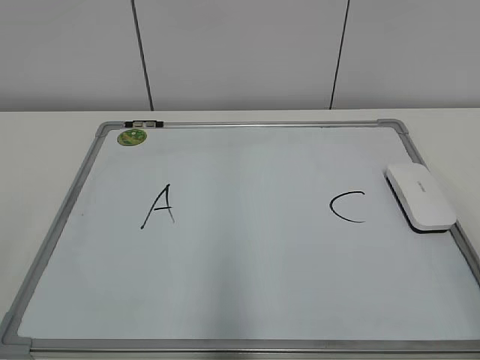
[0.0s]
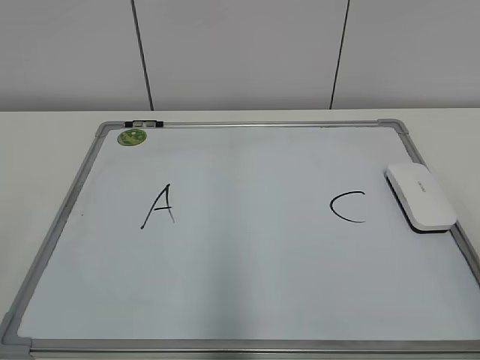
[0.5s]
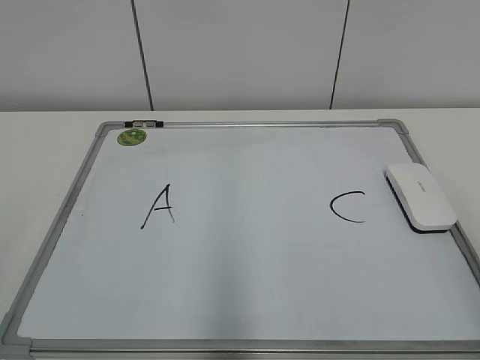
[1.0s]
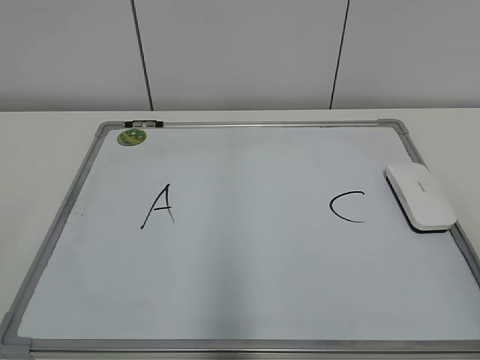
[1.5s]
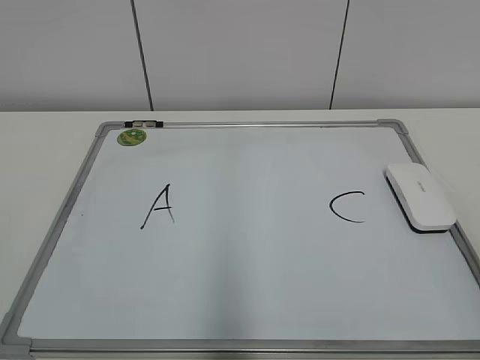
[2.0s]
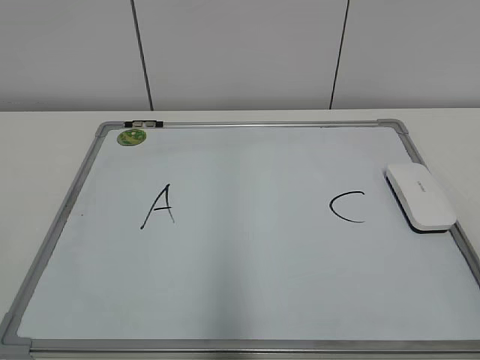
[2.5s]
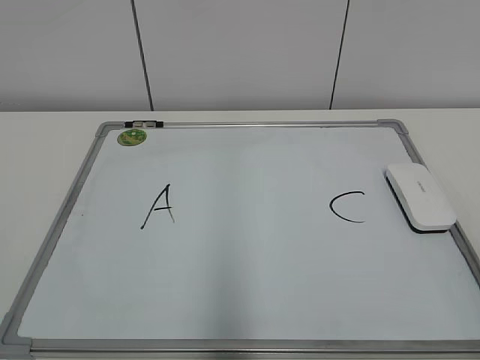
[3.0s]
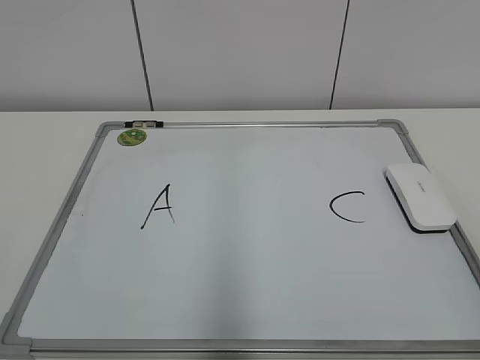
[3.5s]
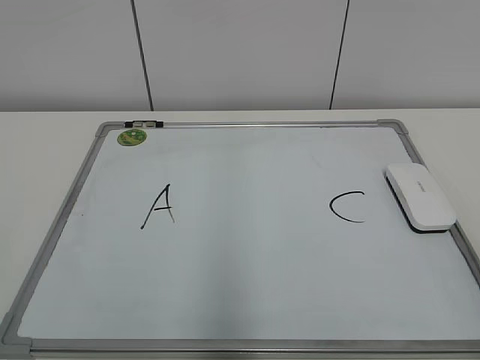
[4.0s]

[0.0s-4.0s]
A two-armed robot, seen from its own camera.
Task of the whole recording: pick up the eraser on the blackboard and erase the letter "B".
2.0s to 4.0s: The two grippers keep their place.

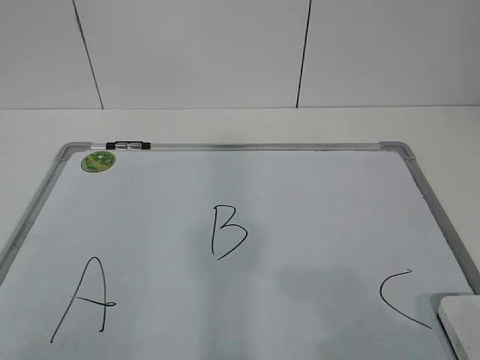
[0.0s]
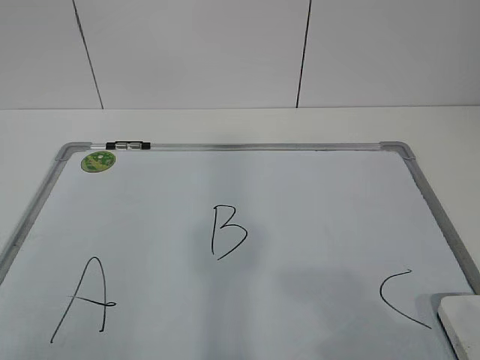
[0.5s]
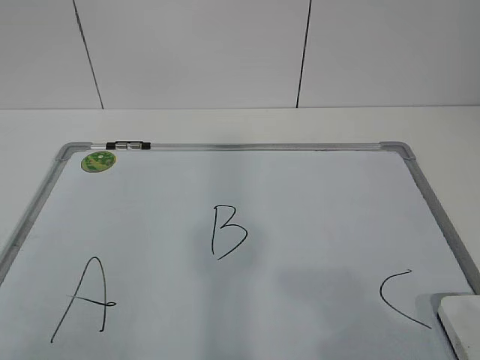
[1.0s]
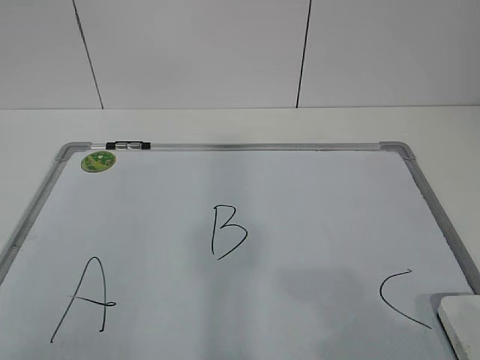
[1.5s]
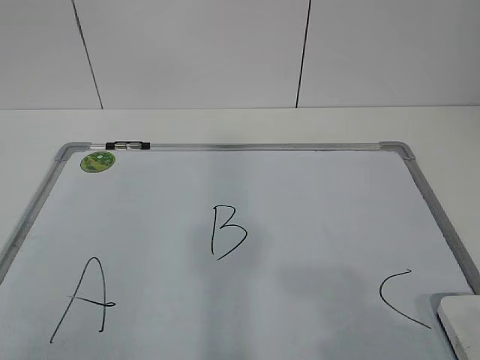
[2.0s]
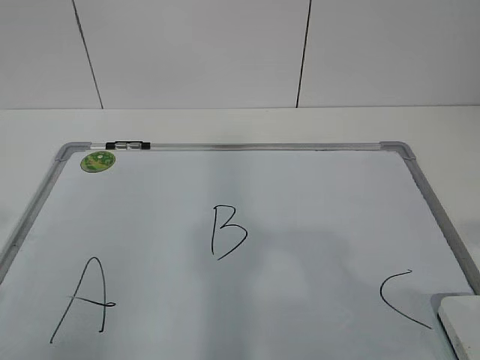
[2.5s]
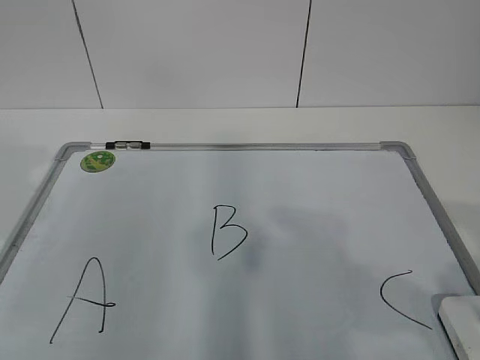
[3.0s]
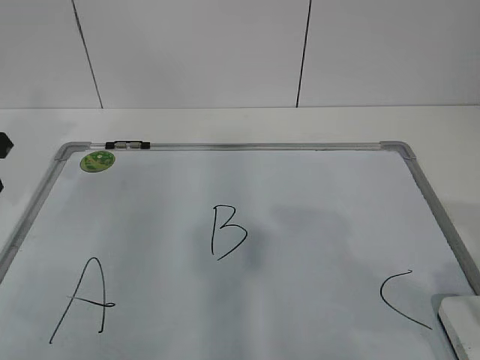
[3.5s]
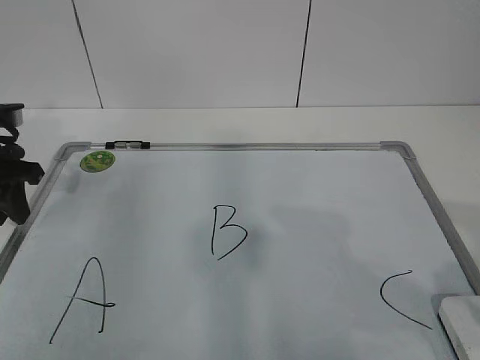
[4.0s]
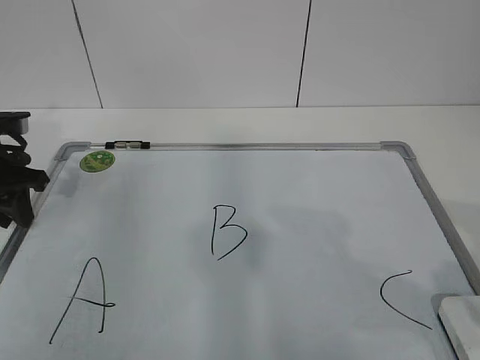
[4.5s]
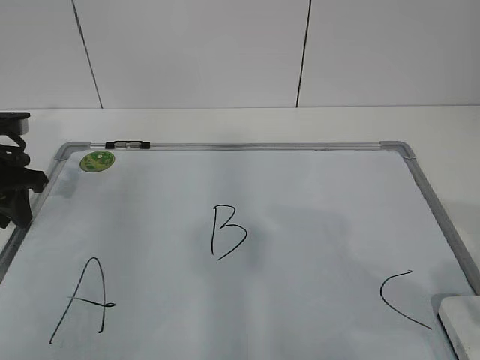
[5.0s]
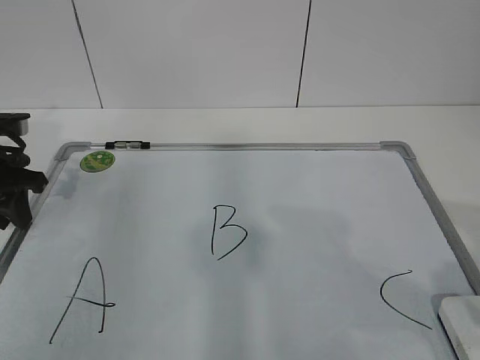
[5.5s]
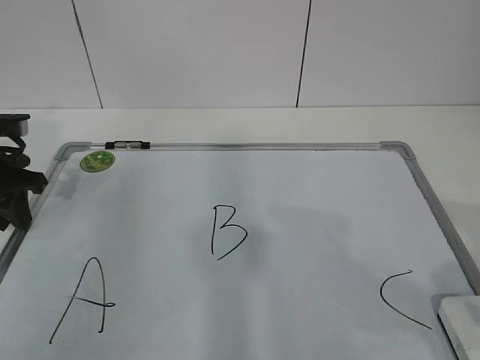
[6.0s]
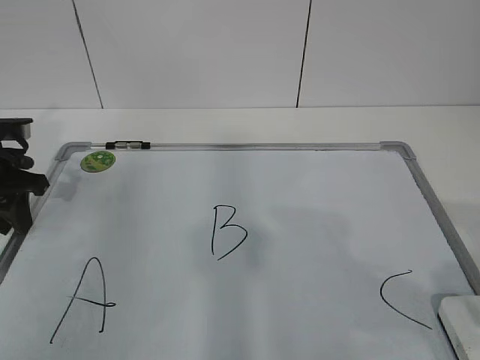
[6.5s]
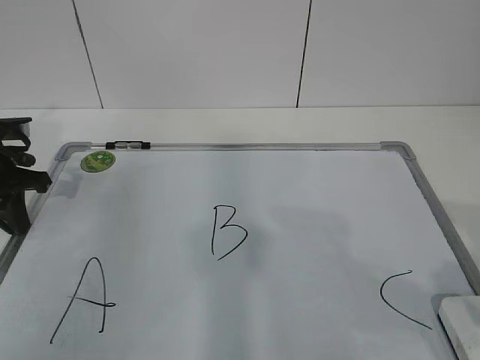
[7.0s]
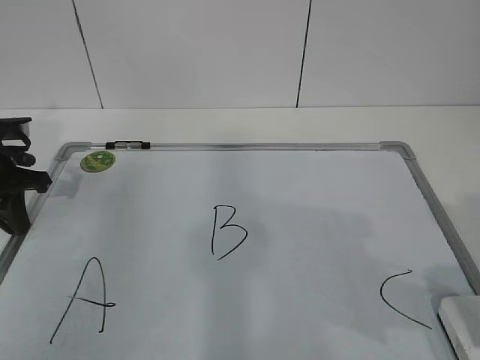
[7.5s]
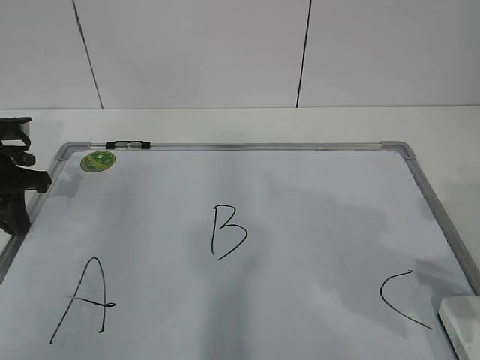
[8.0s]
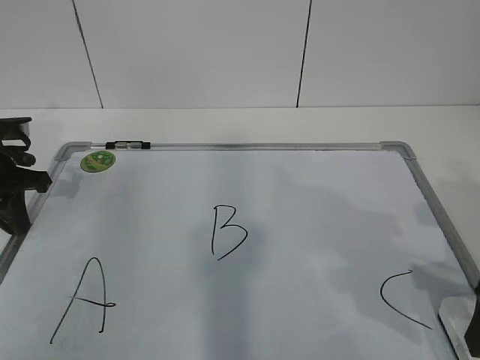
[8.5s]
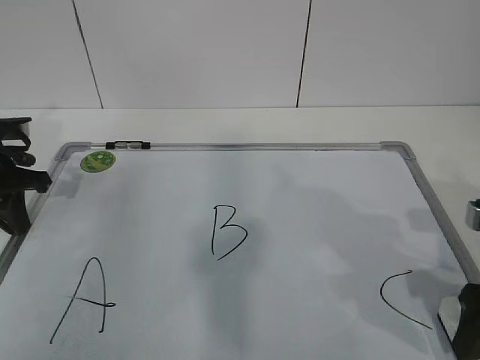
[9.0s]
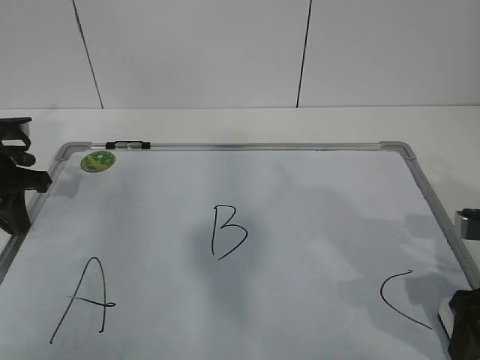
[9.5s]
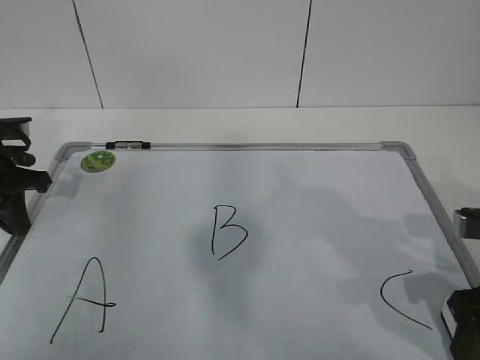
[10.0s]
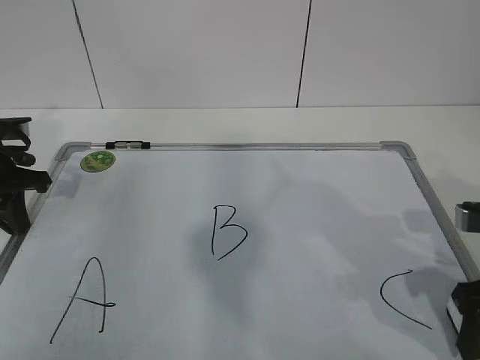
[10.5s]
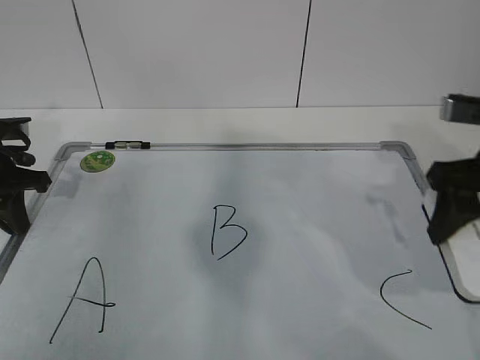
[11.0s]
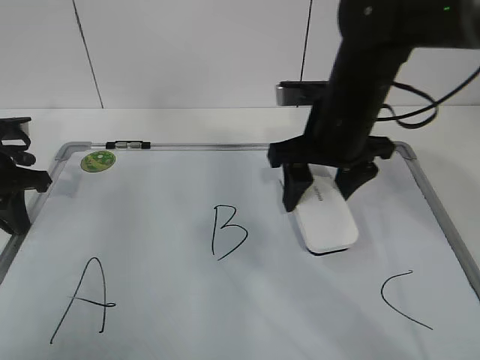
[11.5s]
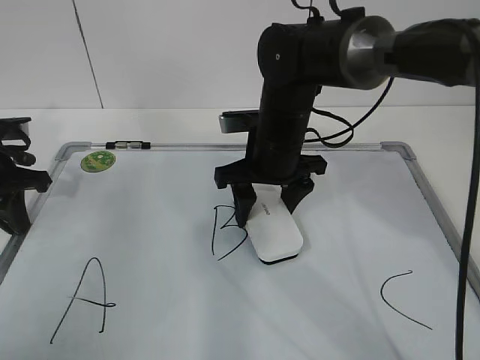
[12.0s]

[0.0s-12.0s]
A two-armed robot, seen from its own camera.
Task of the whole recording: pick up the eraser on the blackboard and erase the letter "B".
Step, 0.0s to 5.5s: Hold the drawing board steady with your left hand.
2.0s to 4.0s: The right gripper is displaced forward by roughly 10 cm. Meanwhile the left gripper shifts approximately 35 cm forward.
4.0s to 6.0s: The grippers make only small movements.
6.0s to 8.0s: The left gripper closes its fingers.
8.0s to 10.0s: The right gripper is displaced downward by approximately 5 cm, and closes its fingers.
10.0s to 12.0s: The right gripper shifts some 30 cm to the left and forward.

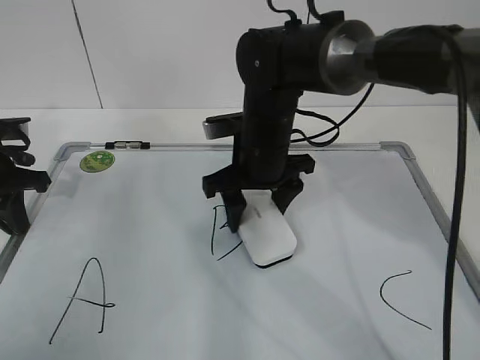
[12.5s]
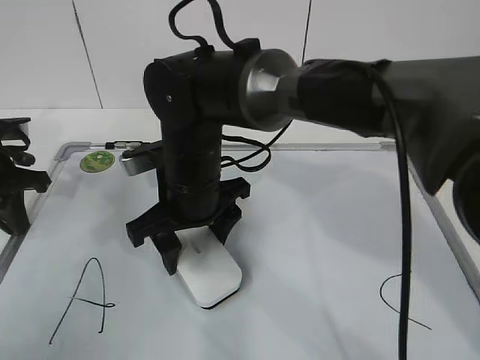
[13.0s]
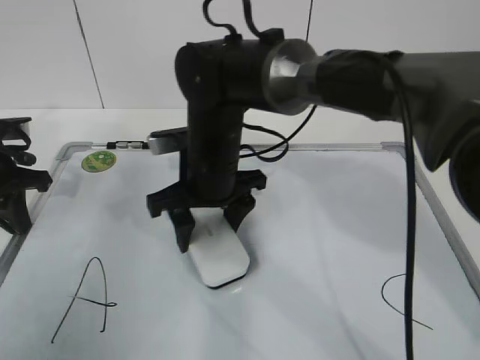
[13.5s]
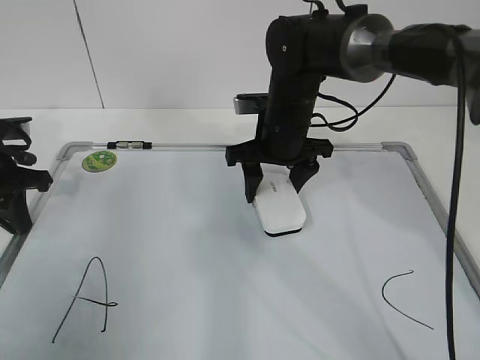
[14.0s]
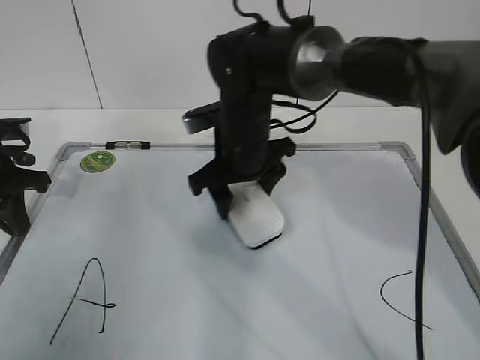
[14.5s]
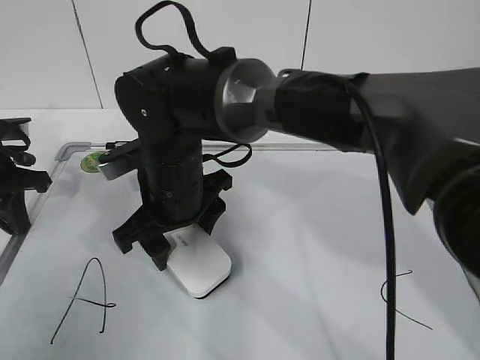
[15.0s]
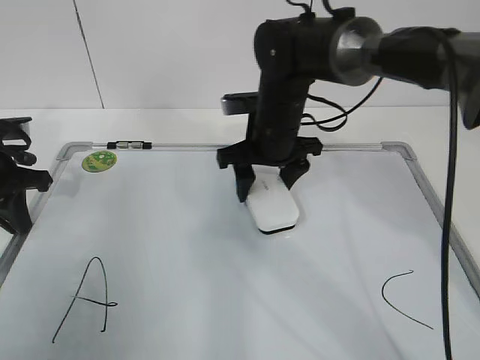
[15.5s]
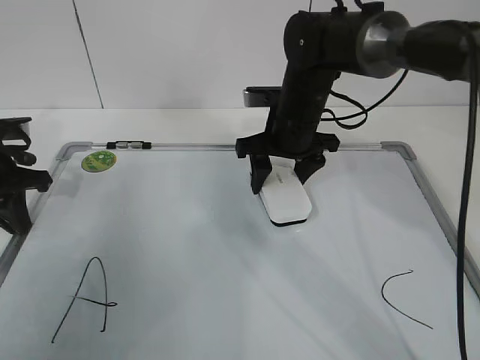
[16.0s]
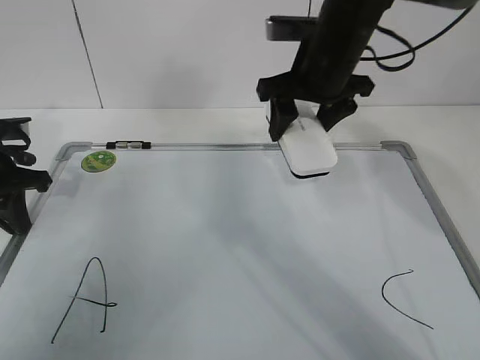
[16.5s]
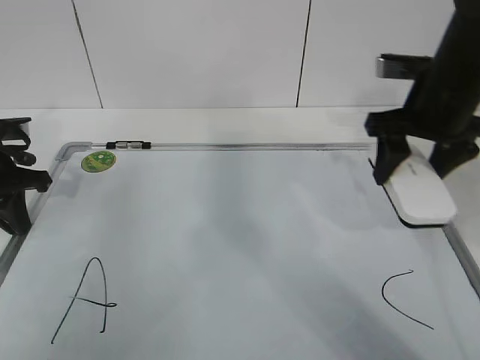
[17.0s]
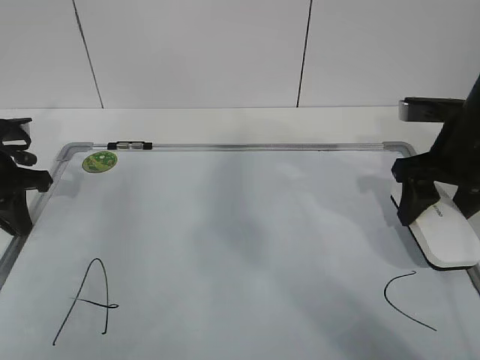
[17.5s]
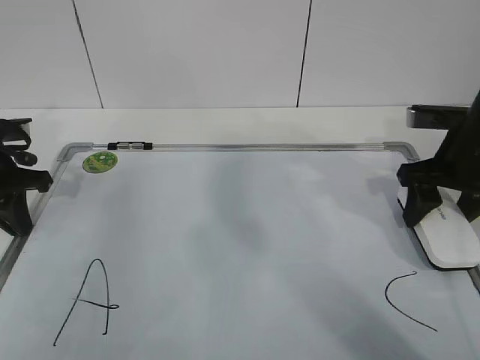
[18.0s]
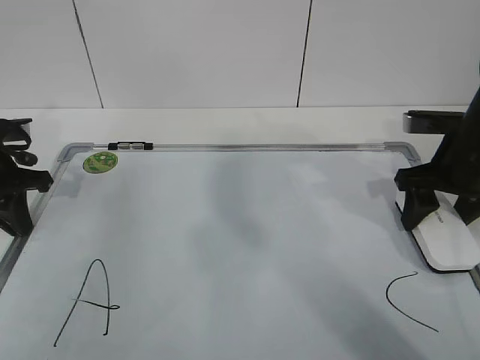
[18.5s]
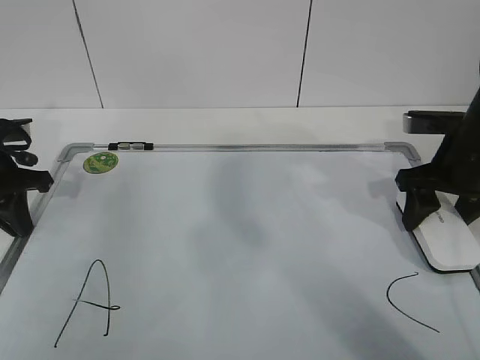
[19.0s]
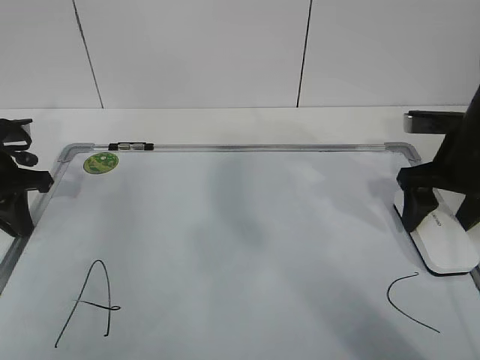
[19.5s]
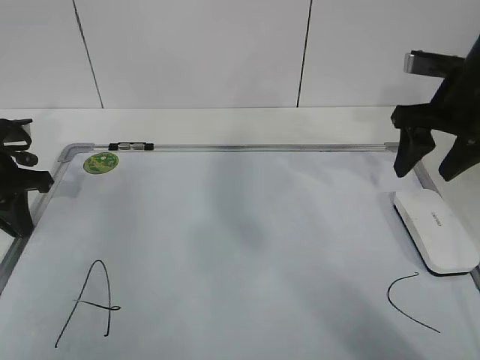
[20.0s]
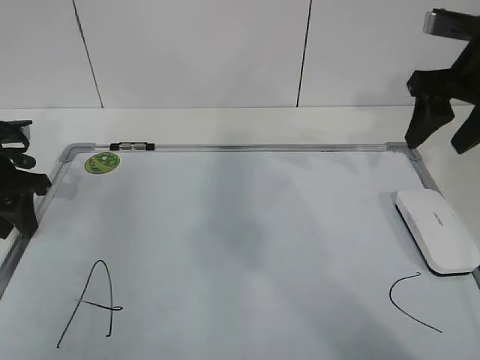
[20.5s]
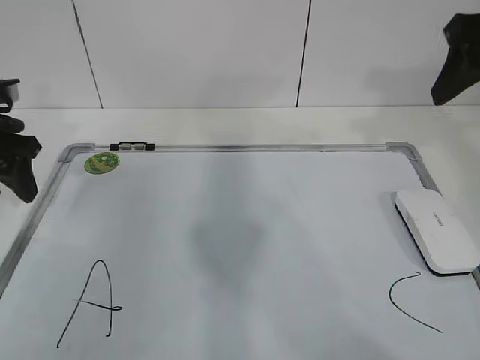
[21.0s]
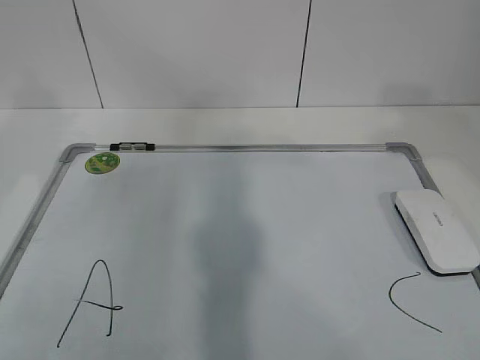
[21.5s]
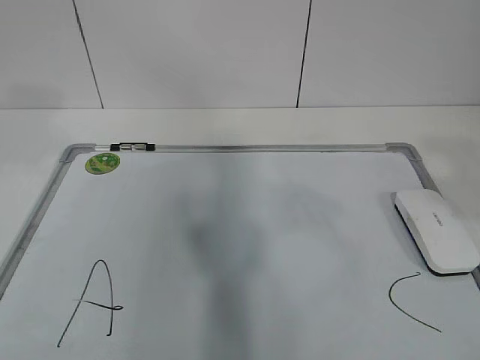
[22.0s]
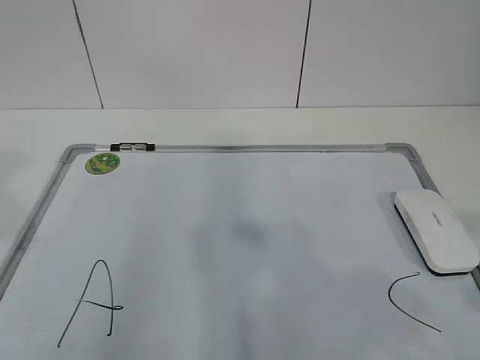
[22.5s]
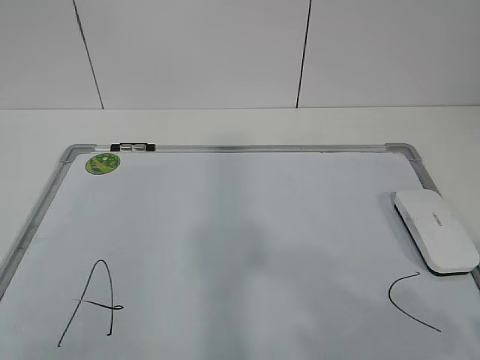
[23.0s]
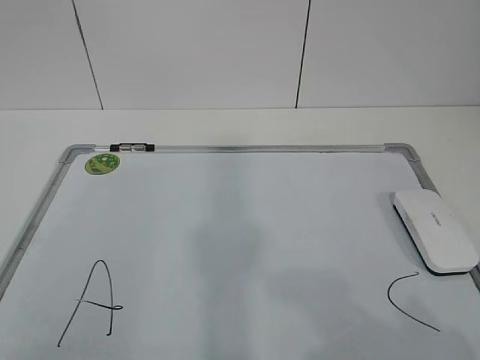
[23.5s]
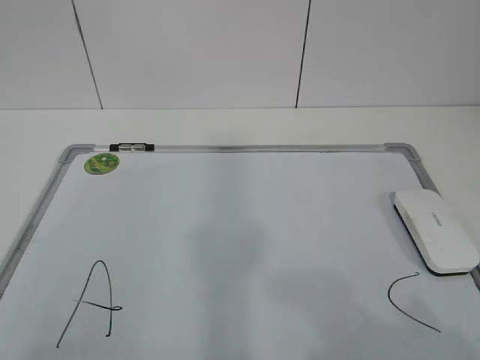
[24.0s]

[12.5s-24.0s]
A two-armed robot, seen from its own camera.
Task of the whole recording: pick up the eraser on the blackboard and erase the letter "B".
Step, 13.5s to 16.0s: Put down the eraser with your right hand.
12.5s to 14.5s: The right gripper goes left and right, approximately 10 cm each way, reversing 2 times.
14.5s to 16.5s: The right gripper shifts about 15 cm to the right and upward.
16.5s to 18.5s: The right gripper shifts roughly 20 cm to the right, downward and backward.
18.5s to 20.0s: The right gripper shifts about 5 cm upward, and opens, then closes once more.
20.0s to 22.0s: The right gripper goes some 30 cm backward and upward. The left gripper is displaced upward and backward by roughly 25 cm, and opens up.
22.0s to 24.0s: The right gripper shifts about 15 cm downward and backward. Meanwhile the left gripper goes approximately 25 cm backward and downward.
